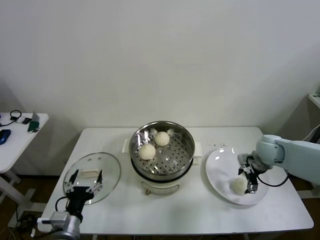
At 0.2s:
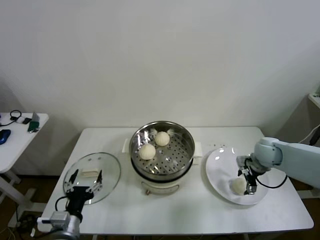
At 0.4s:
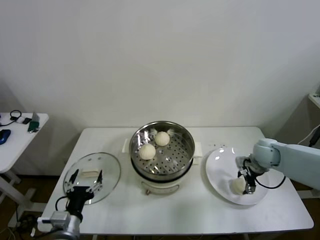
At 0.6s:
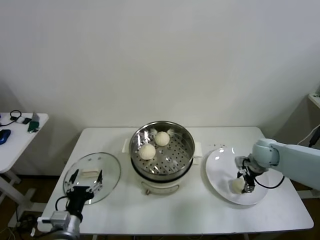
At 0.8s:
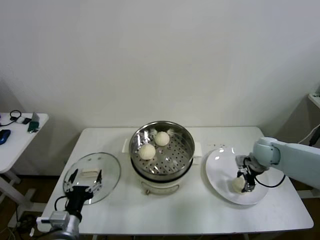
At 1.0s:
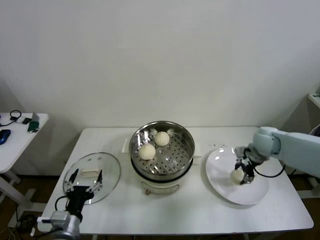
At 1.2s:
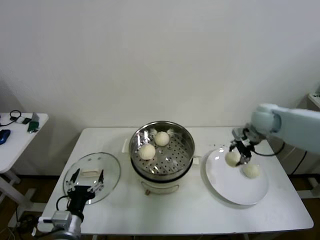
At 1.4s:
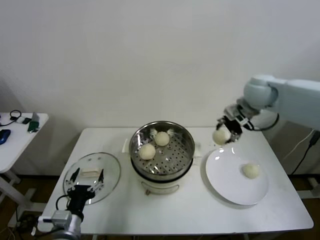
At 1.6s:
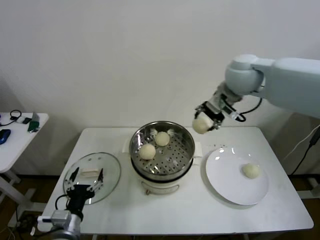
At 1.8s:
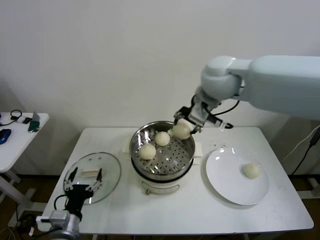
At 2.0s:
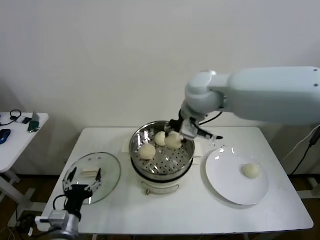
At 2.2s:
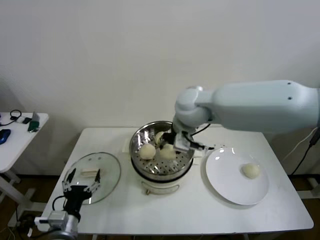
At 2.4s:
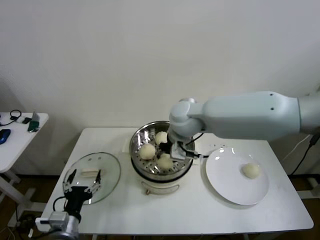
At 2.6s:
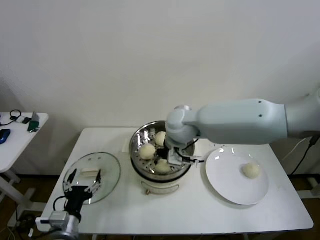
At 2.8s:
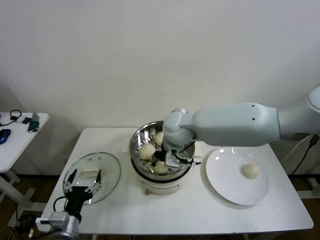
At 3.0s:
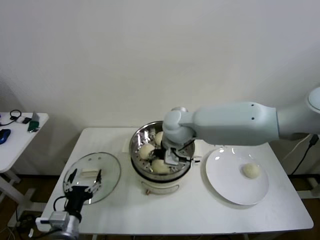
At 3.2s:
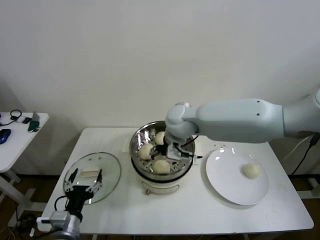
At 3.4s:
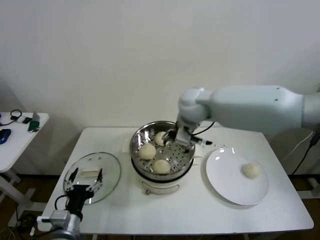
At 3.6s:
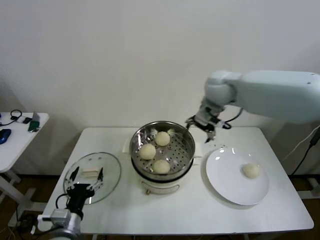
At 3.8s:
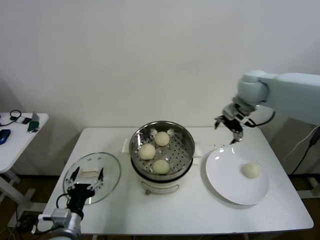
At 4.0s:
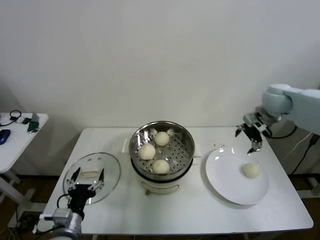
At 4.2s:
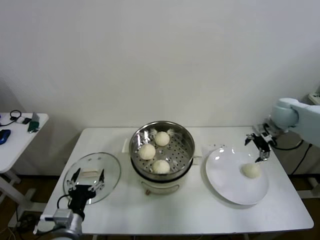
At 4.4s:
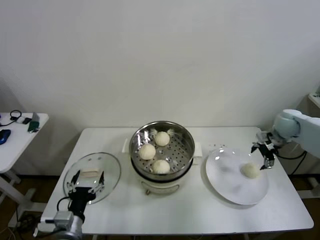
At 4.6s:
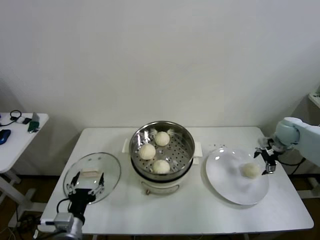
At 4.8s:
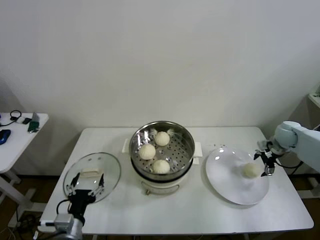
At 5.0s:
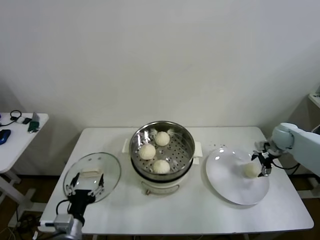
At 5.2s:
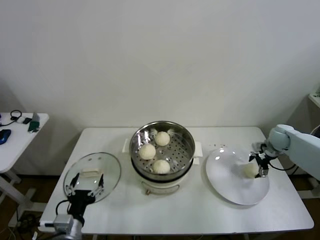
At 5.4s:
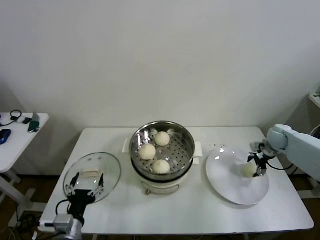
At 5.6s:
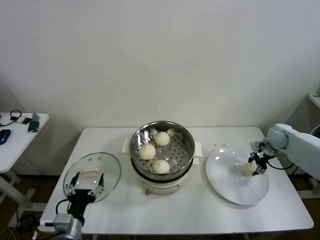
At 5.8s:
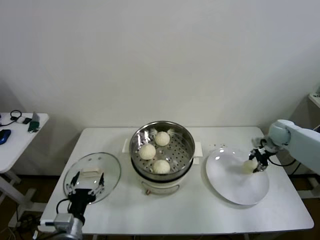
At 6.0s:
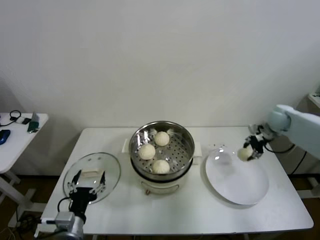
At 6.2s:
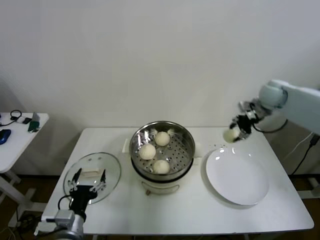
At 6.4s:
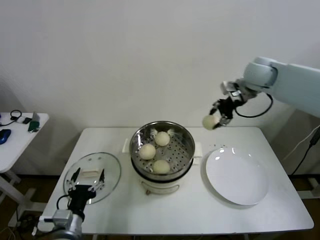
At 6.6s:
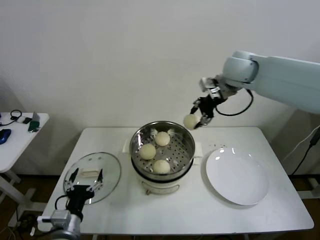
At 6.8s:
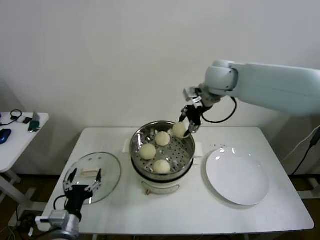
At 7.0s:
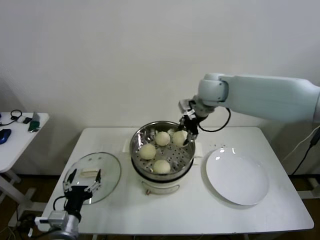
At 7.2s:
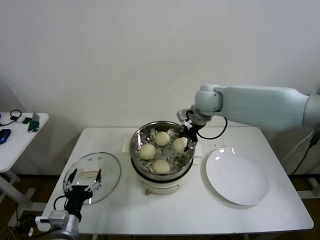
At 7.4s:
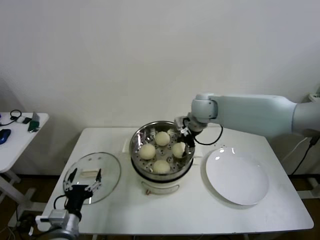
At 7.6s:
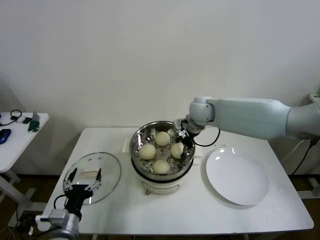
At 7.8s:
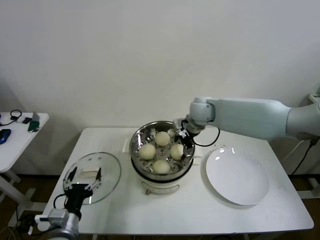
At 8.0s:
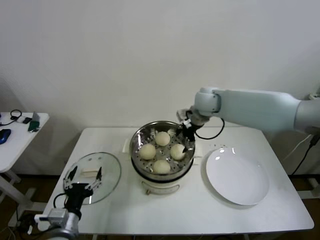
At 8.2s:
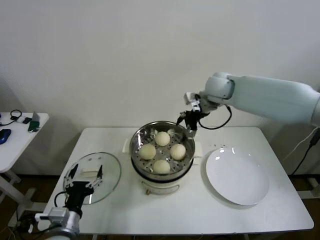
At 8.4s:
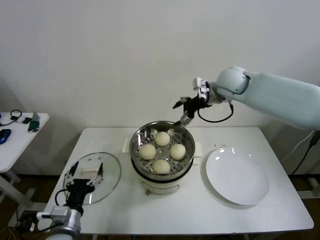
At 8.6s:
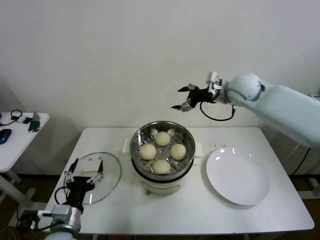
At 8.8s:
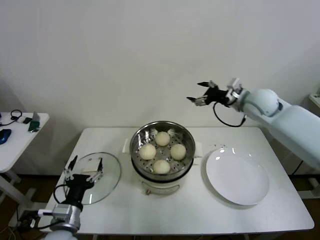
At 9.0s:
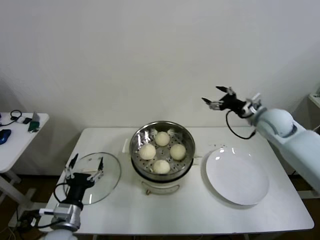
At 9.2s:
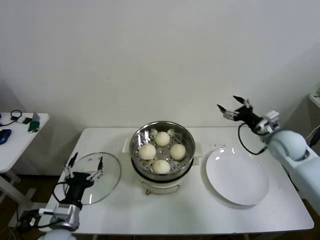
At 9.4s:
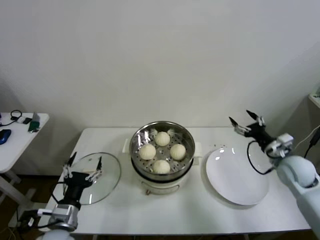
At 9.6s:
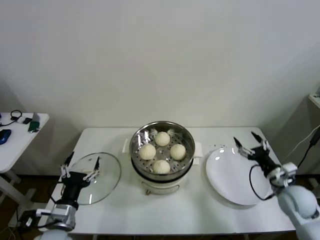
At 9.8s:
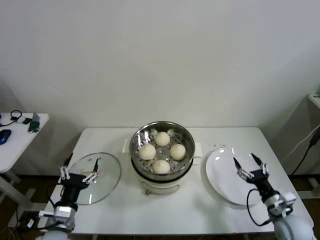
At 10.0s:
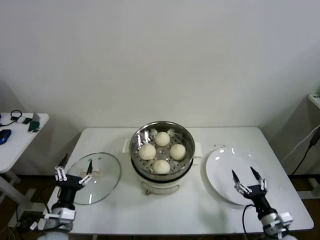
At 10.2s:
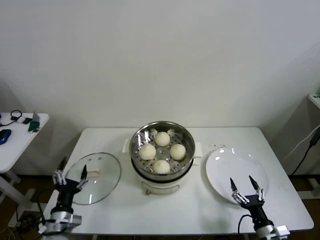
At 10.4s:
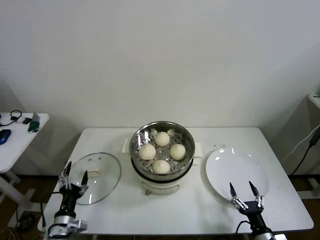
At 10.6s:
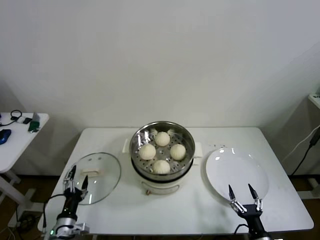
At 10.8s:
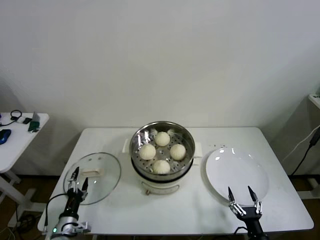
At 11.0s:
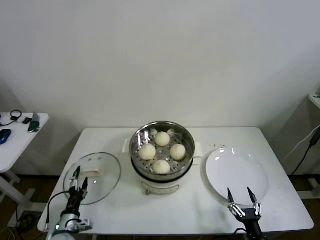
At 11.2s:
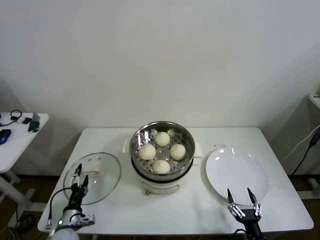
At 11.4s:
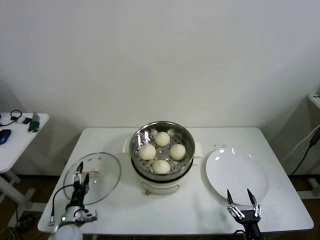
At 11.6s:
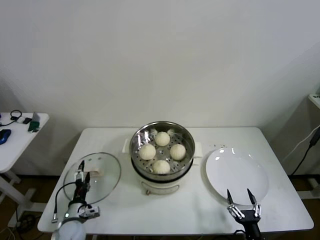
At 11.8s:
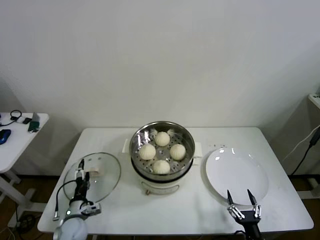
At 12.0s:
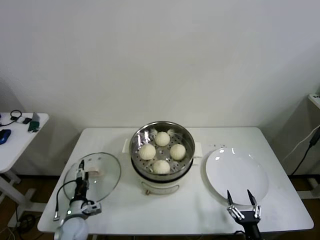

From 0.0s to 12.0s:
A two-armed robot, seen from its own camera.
Step, from 0.8s to 3.0s: Place the baozi on the steamer with right gripper.
Step, from 3.2s to 5.6s: Grasp the baozi in the plate with right gripper.
Step, from 5.8s to 7.8s: Place the baozi on the steamer with right gripper.
From 0.0s to 1.6s: The right gripper moves upward and to the left, about 35 cm, and closes up.
From 1.6s to 3.0s: The right gripper travels downward and to the left by some 20 cm, and opens up.
From 3.0s to 4.4s: The right gripper goes some 40 cm to the right.
From 4.4s to 6.0s: The right gripper moves roughly 10 cm downward and comes back, and closes.
From 6.0s to 7.6s: The right gripper is displaced to the left by some 30 cm.
From 7.6s to 9.0s: The right gripper heads to the right, covering about 20 cm, and opens up.
From 9.0s to 10.4s: The right gripper is displaced backward and downward by approximately 40 cm. The left gripper moves downward and to the left, approximately 10 cm.
From 10.4s to 12.0s: The left gripper heads forward and downward, covering some 10 cm.

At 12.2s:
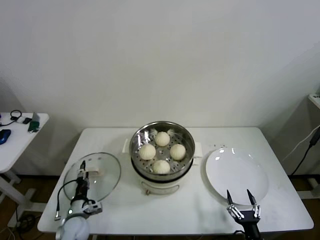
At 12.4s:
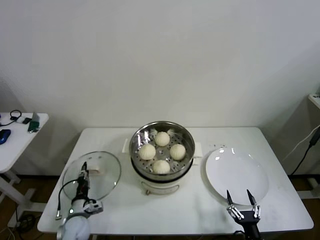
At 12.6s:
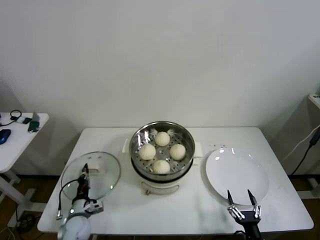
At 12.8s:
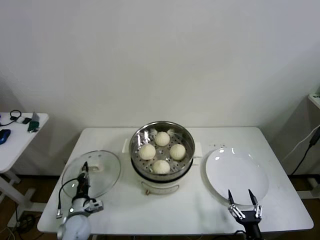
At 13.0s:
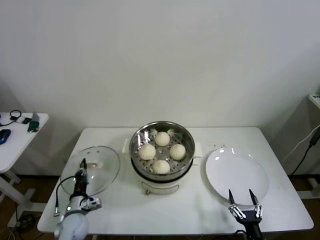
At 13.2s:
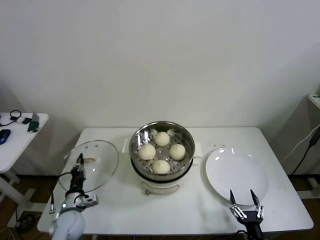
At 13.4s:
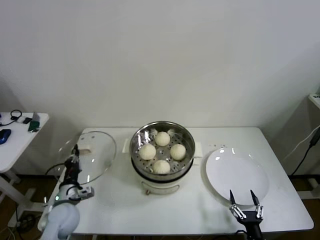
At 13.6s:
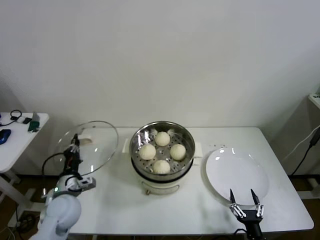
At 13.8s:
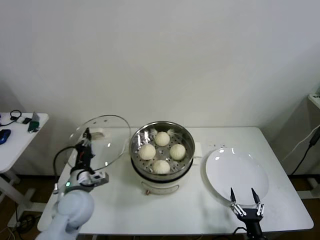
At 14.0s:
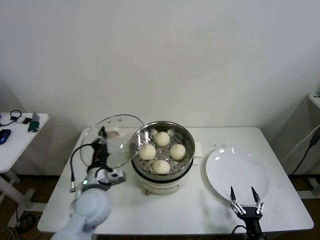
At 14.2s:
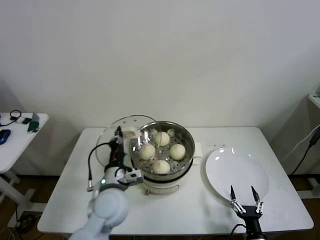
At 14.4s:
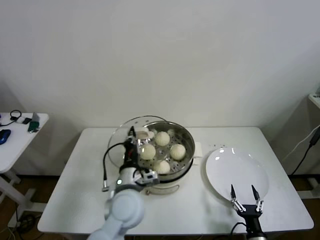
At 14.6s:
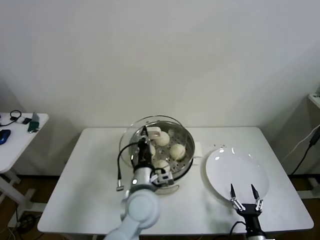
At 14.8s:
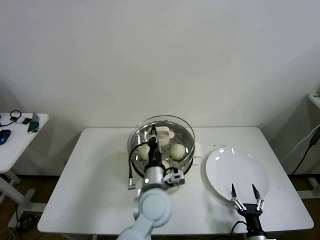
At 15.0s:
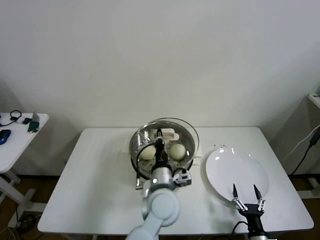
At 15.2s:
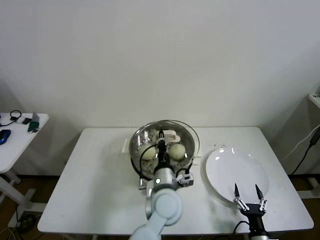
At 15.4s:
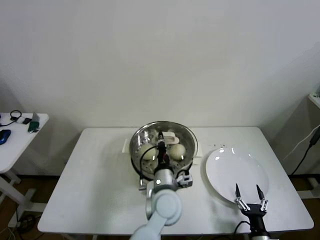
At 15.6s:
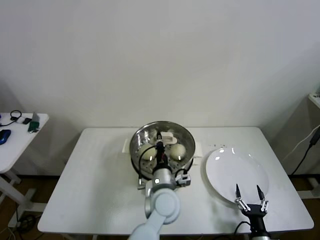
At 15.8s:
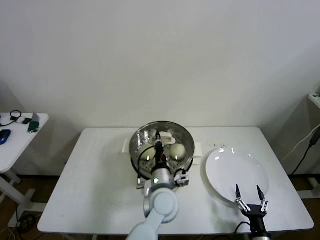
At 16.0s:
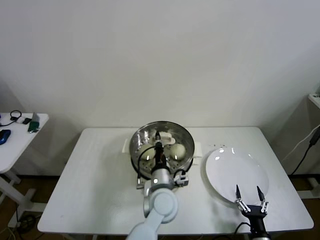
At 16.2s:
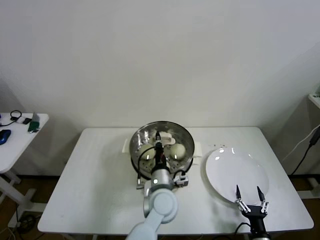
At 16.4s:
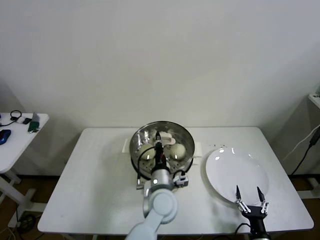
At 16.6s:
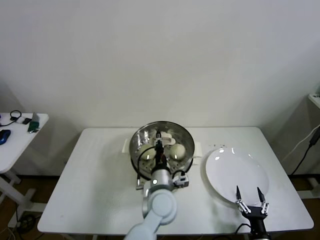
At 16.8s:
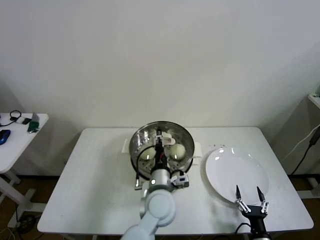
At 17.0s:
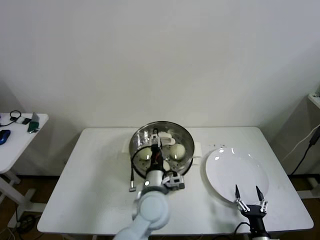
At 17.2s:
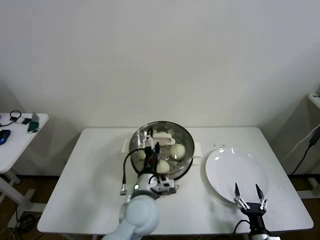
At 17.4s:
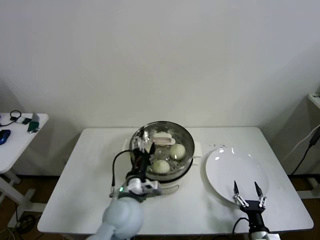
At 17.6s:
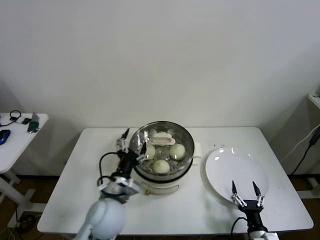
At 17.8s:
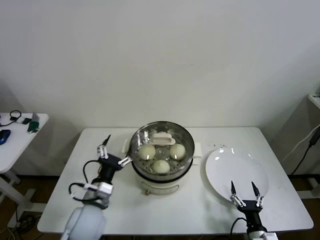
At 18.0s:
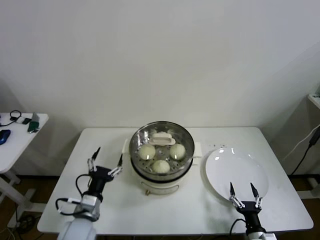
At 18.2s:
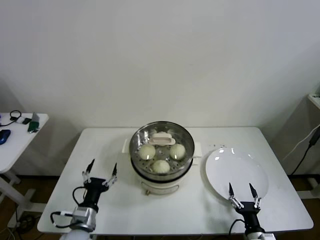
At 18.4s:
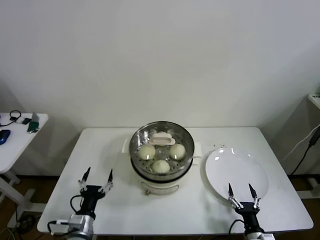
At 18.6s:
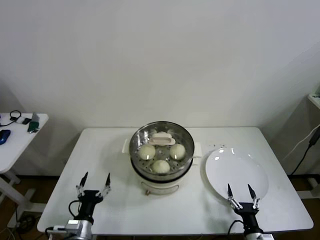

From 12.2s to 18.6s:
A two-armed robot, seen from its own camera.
Step, from 12.8s to 16.4s: Place the pot lid on the steamer with left gripper.
From 12.2s to 13.8s: The left gripper shifts some 20 cm upward, and closes its fingers.
From 13.8s to 15.4s: The left gripper shifts roughly 30 cm to the right.
From 15.4s to 17.0s: The left gripper opens.
From 17.0s to 18.6s: The left gripper goes some 30 cm to the left and downward.

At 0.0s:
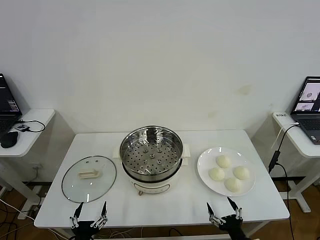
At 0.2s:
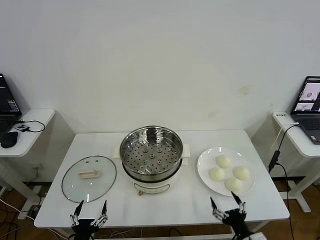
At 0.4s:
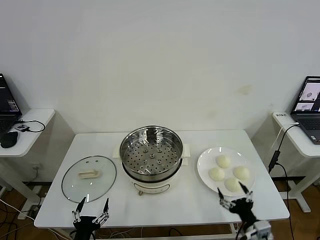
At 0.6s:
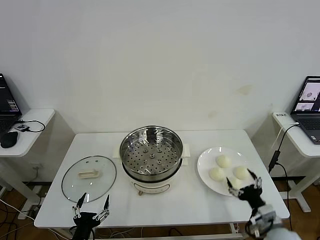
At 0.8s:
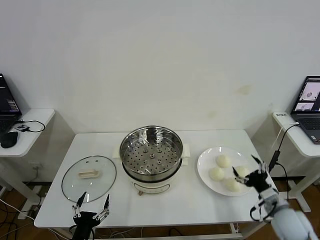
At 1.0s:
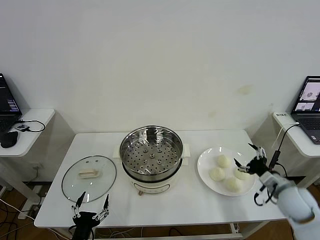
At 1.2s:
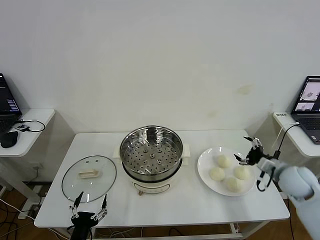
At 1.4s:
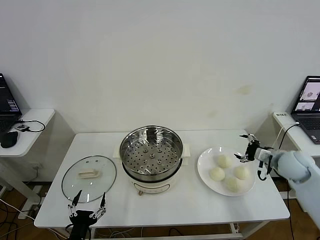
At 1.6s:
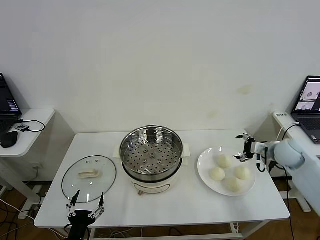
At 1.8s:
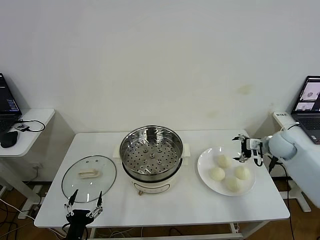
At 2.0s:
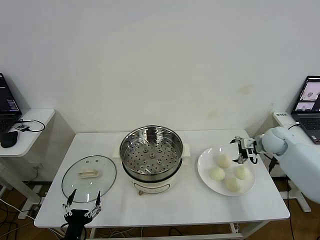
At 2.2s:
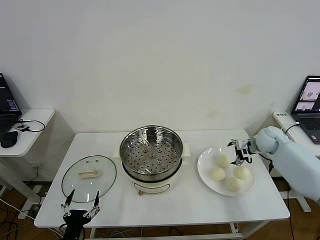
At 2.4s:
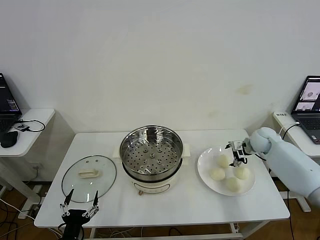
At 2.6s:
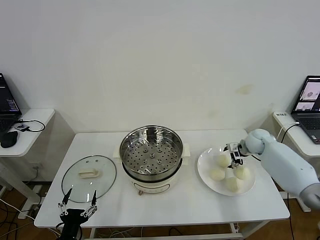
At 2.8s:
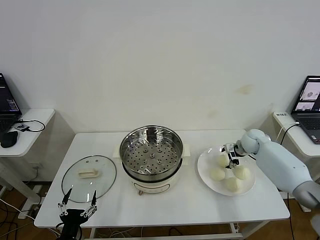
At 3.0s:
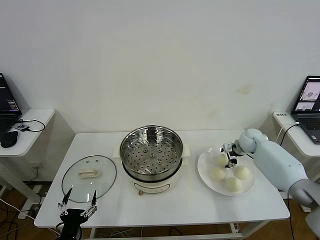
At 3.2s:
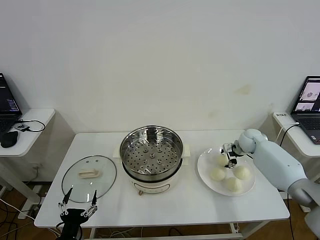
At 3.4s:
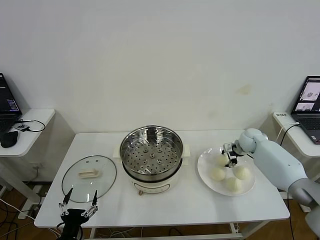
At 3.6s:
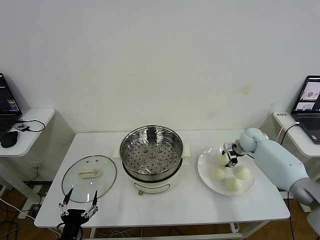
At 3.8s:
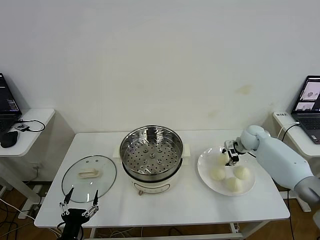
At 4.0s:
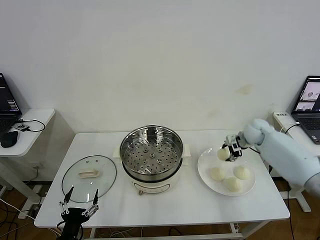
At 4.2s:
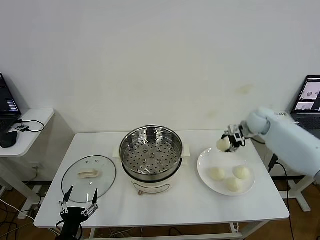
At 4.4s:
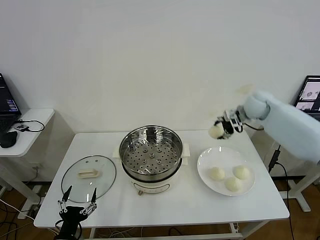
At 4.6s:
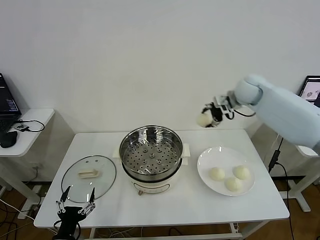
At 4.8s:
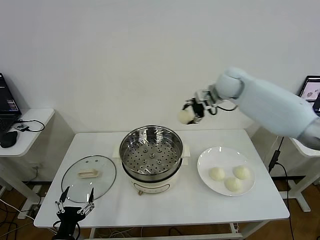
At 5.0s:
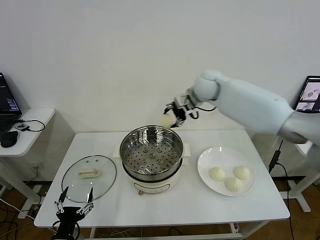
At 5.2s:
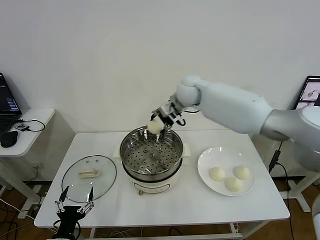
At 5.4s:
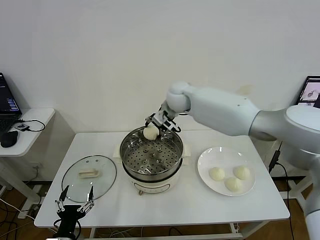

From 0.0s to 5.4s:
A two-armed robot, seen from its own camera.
Step, from 0.0s to 3.2s: Grasp the baozi in the plate with right gripper.
From 1.4s to 2.8s: The right gripper is displaced forward, downward and to the left by some 15 cm.
From 2.8s to 4.0s: The right gripper shifts about 10 cm upward, and closes.
From 4.0s to 5.4s: The right gripper heads to the left, covering about 30 cm.
